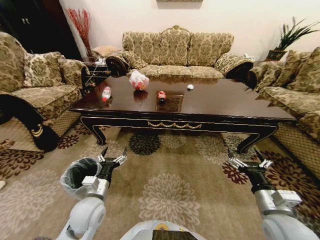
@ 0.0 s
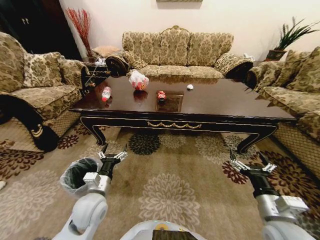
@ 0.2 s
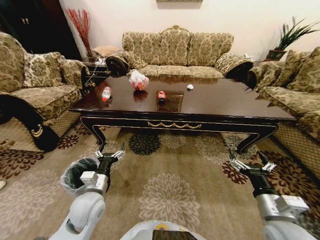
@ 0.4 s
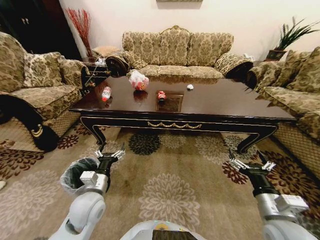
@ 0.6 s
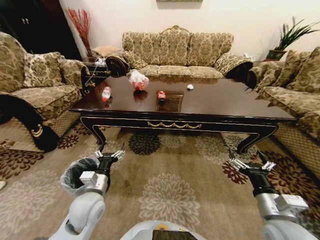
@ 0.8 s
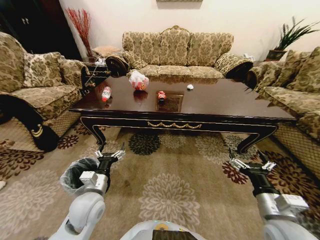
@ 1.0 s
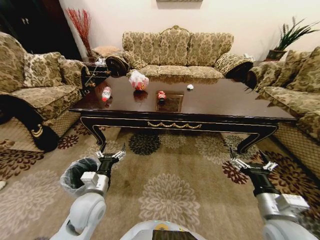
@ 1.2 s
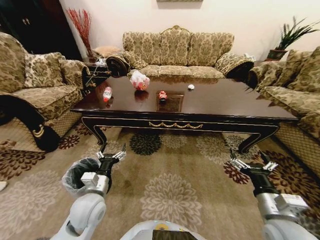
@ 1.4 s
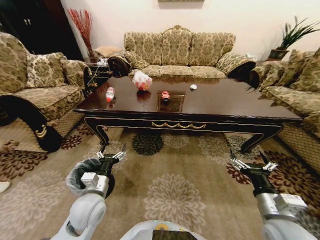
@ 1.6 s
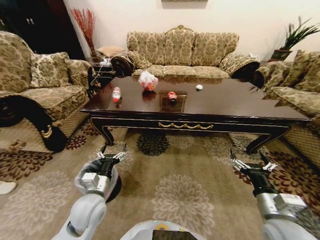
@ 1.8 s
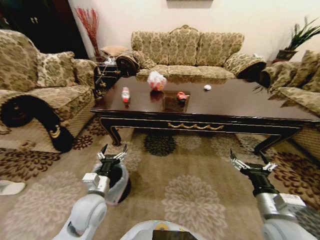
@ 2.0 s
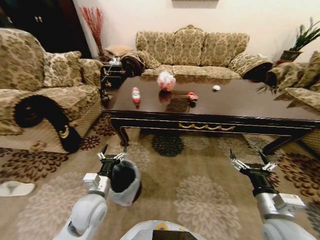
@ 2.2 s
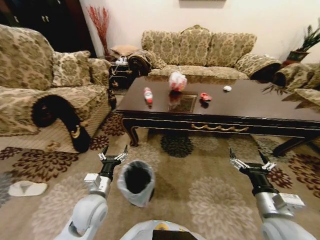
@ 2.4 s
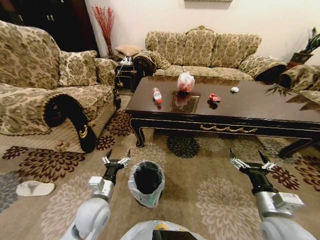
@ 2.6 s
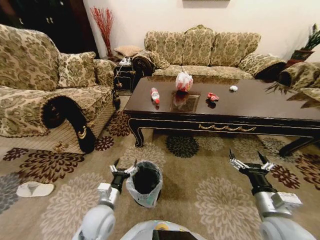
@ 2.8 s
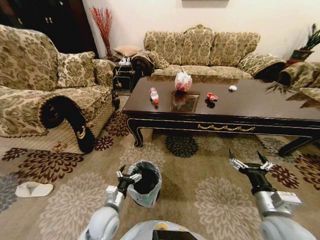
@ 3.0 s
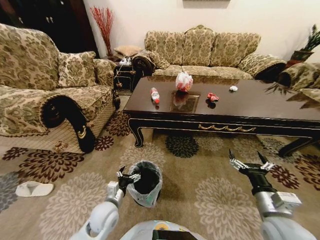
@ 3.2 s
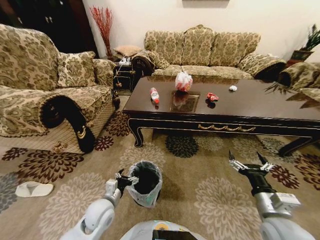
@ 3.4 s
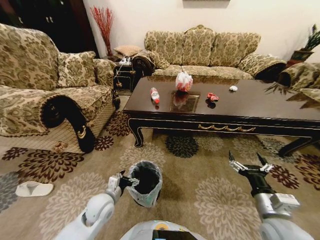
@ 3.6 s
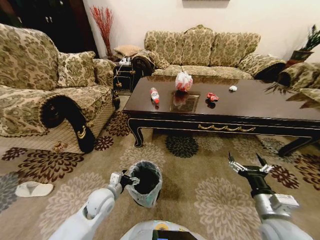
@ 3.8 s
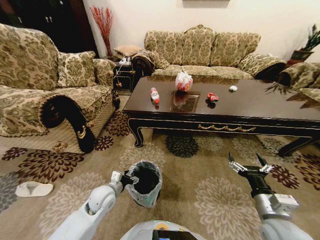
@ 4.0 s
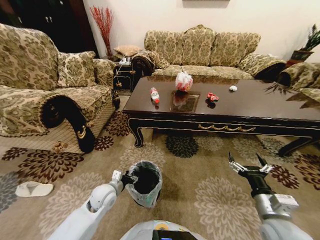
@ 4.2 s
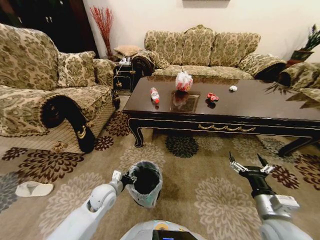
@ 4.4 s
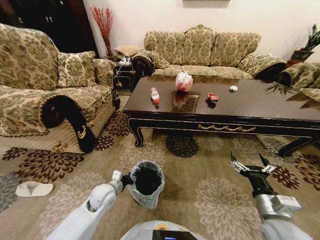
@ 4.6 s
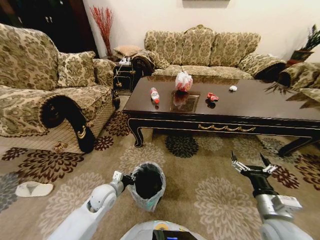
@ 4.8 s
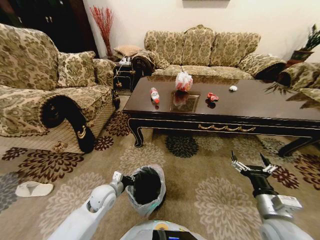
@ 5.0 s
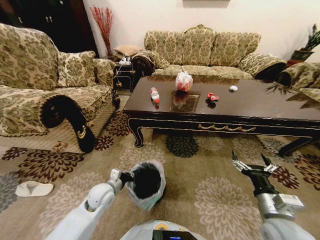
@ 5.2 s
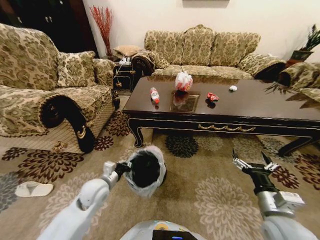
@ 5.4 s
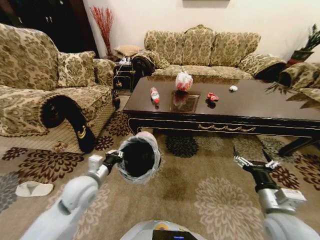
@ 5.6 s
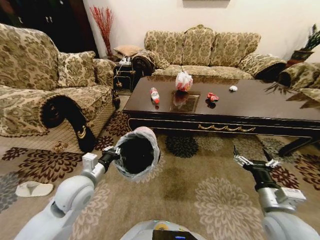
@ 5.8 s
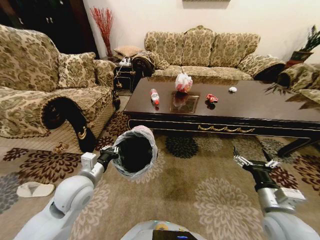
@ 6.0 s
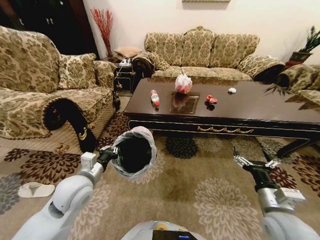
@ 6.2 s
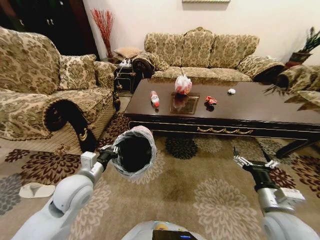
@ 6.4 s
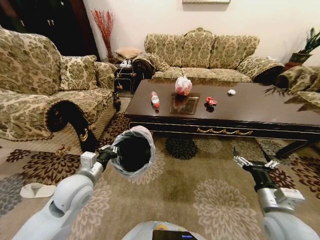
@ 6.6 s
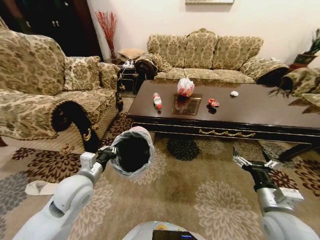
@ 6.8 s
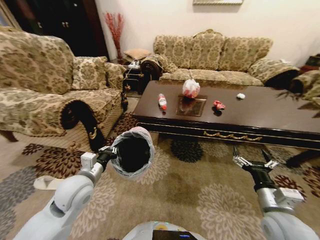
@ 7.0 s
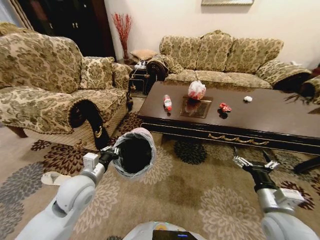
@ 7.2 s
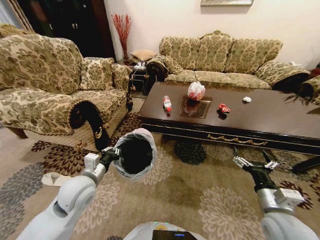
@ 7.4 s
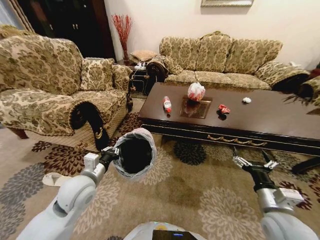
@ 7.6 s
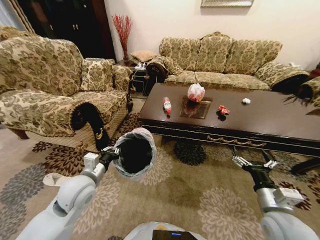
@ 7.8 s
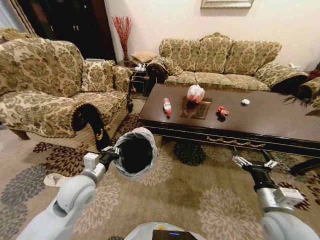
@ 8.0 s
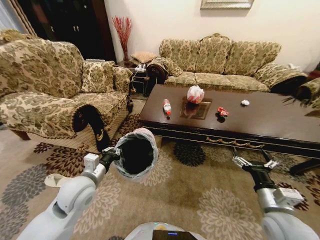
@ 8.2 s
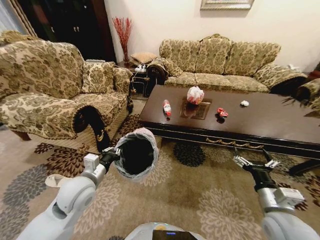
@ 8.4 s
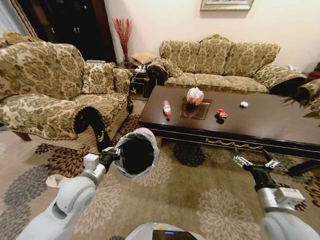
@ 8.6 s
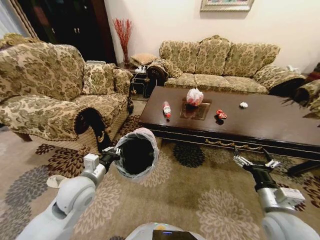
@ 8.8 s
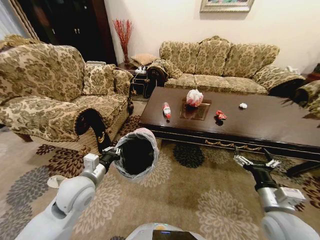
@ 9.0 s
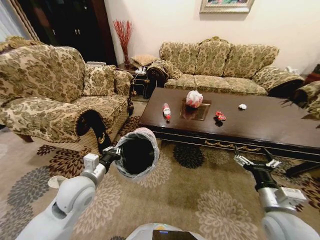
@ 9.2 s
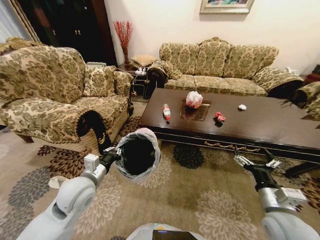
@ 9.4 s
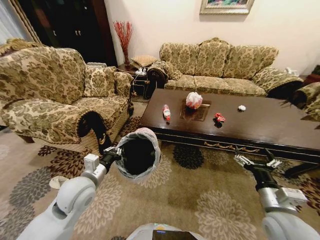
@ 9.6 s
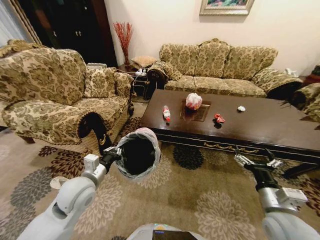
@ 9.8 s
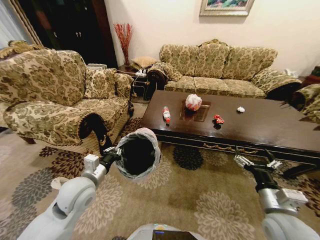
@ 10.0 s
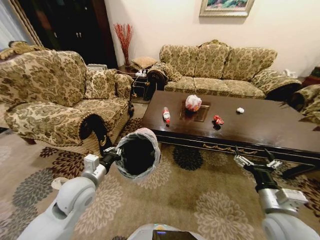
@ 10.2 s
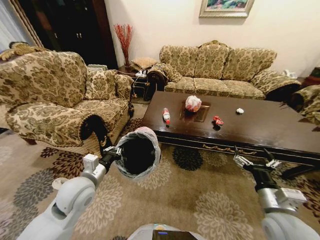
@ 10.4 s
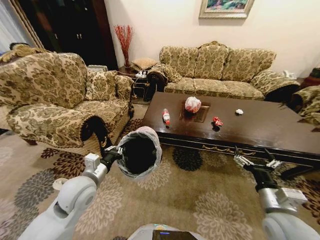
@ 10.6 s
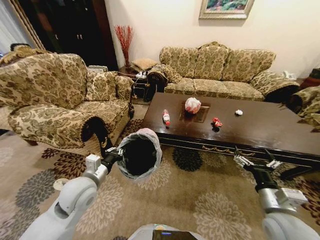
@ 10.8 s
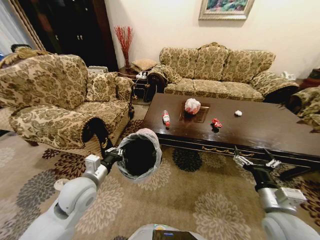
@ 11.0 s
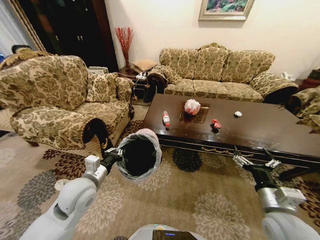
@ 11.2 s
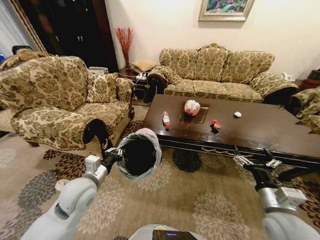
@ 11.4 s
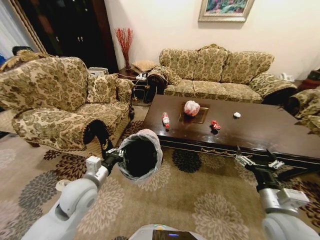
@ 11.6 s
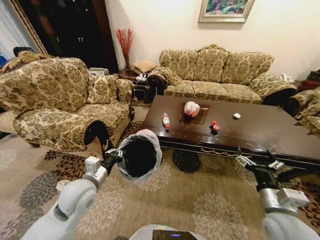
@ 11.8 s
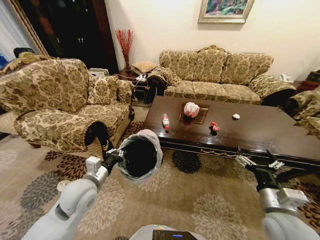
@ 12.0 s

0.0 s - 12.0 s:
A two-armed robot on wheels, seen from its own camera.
Task of the whole recording: Move to the front of the table and place the trash on the table into the trash bin.
1.6 s - 3.0 s: The left gripper heads downward, covering approximately 10 cm.
3.0 s - 4.4 s: The left gripper moves forward, roughly 10 cm, and closes.
4.4 s - 6.0 s: The left gripper heads upward, covering roughly 15 cm, and closes.

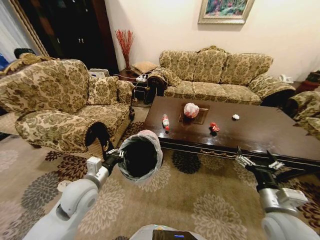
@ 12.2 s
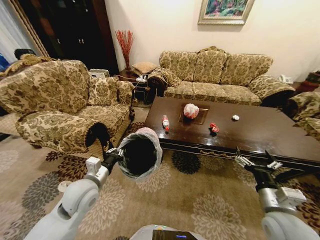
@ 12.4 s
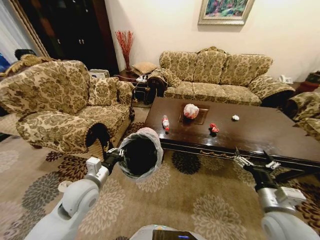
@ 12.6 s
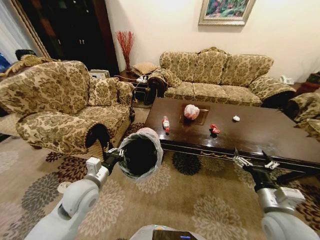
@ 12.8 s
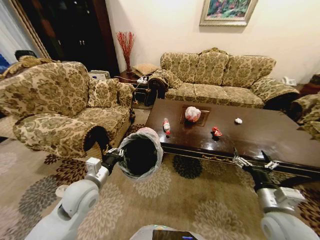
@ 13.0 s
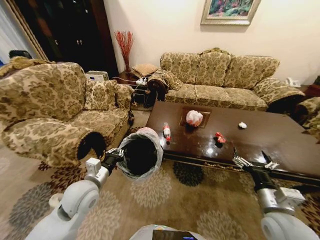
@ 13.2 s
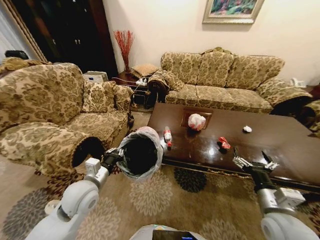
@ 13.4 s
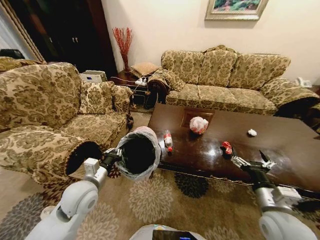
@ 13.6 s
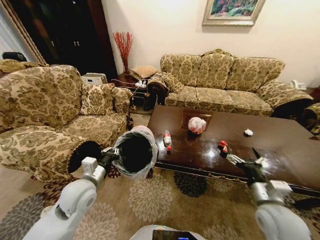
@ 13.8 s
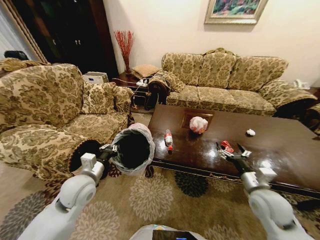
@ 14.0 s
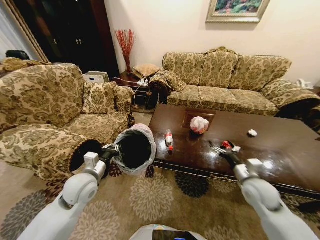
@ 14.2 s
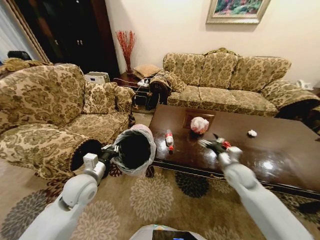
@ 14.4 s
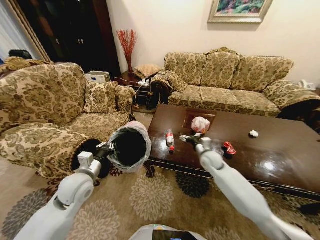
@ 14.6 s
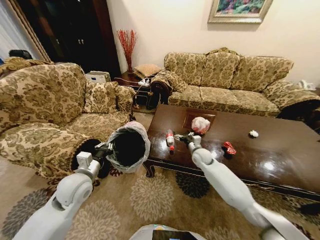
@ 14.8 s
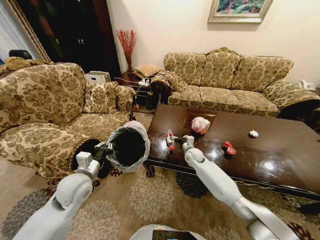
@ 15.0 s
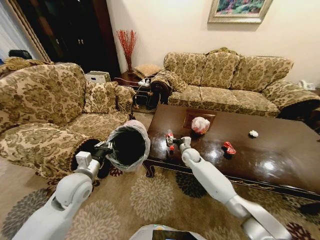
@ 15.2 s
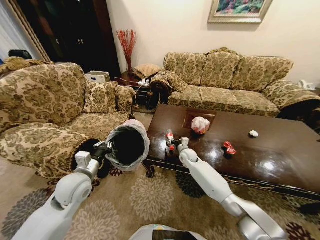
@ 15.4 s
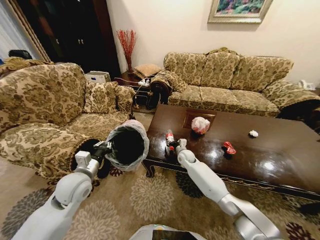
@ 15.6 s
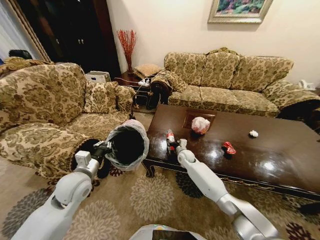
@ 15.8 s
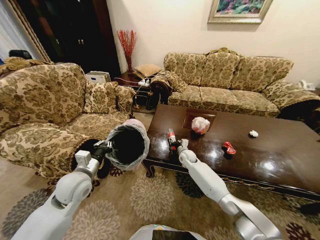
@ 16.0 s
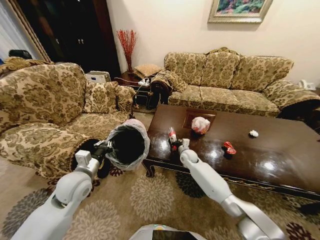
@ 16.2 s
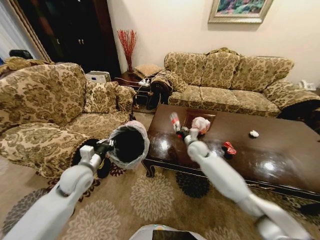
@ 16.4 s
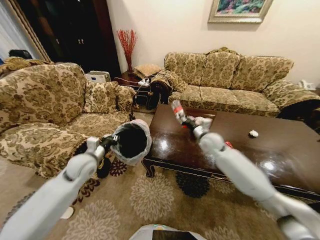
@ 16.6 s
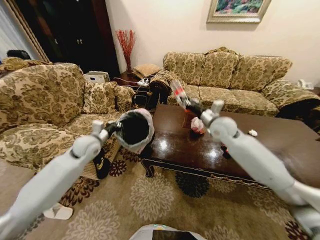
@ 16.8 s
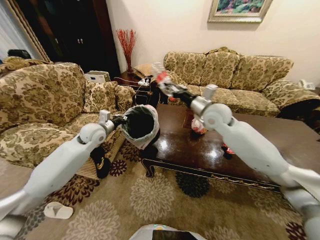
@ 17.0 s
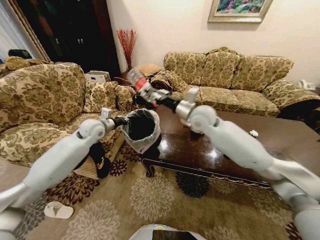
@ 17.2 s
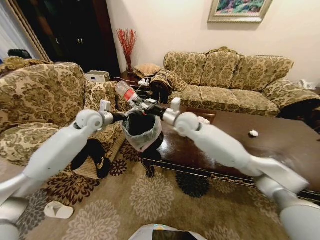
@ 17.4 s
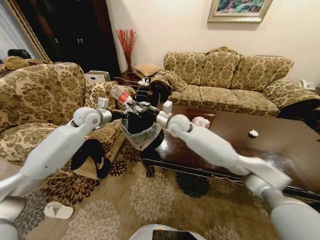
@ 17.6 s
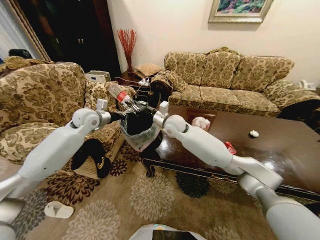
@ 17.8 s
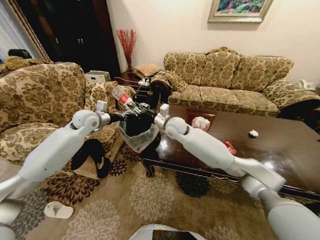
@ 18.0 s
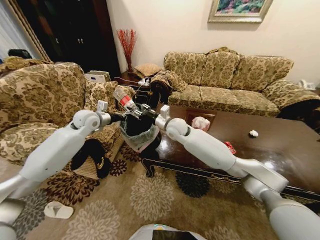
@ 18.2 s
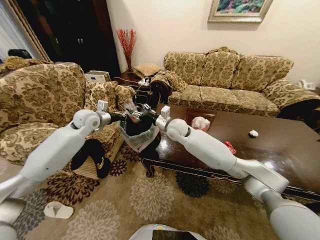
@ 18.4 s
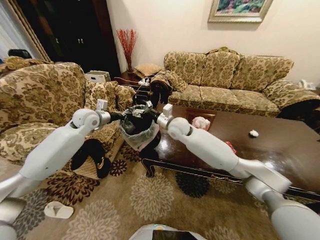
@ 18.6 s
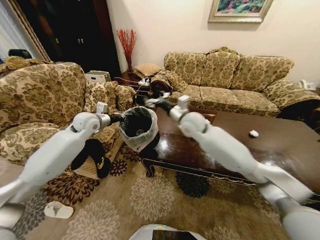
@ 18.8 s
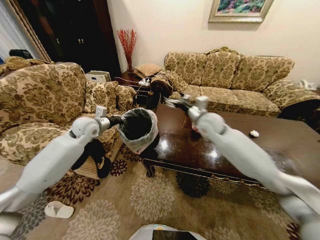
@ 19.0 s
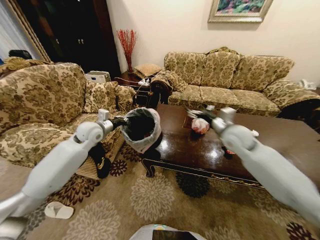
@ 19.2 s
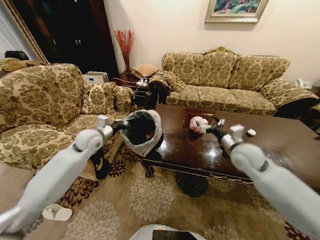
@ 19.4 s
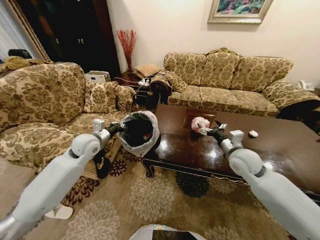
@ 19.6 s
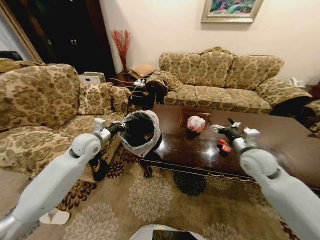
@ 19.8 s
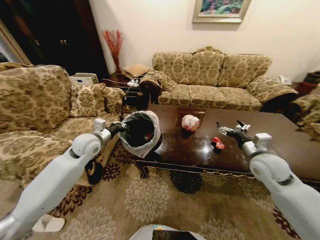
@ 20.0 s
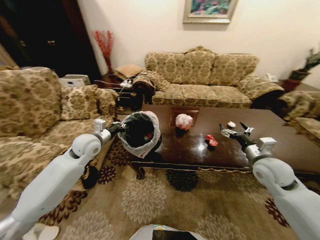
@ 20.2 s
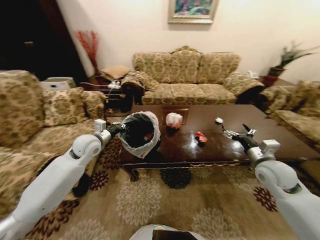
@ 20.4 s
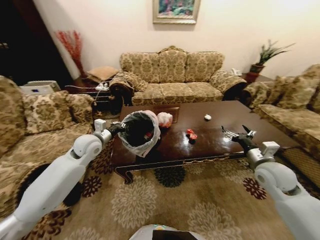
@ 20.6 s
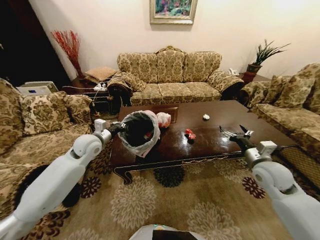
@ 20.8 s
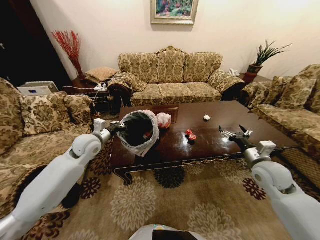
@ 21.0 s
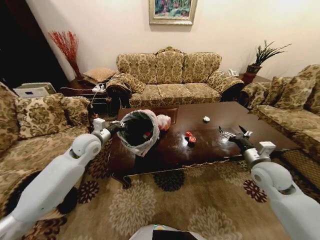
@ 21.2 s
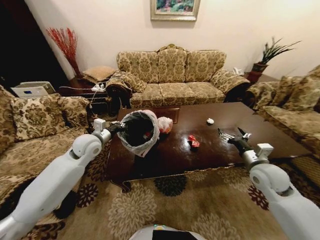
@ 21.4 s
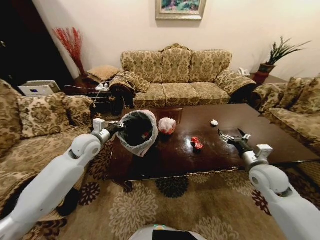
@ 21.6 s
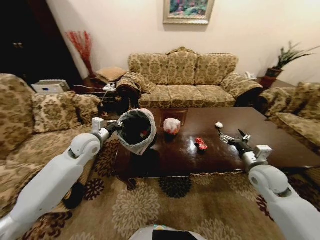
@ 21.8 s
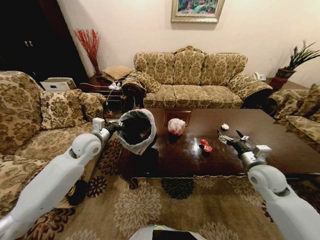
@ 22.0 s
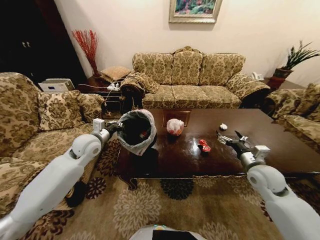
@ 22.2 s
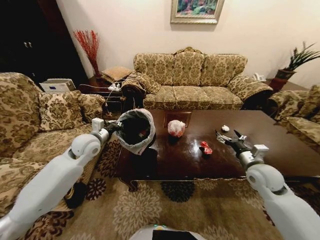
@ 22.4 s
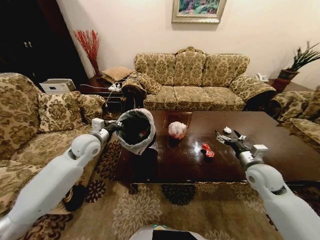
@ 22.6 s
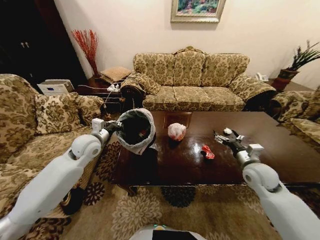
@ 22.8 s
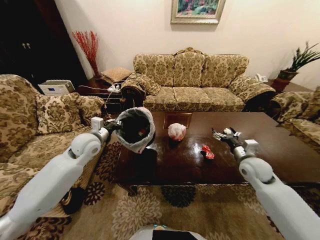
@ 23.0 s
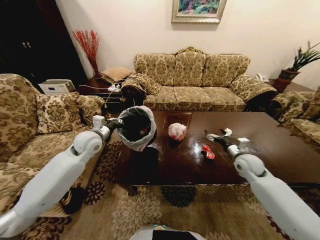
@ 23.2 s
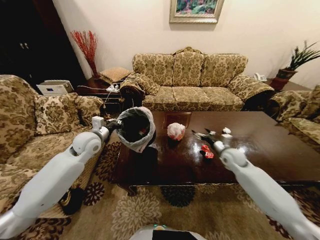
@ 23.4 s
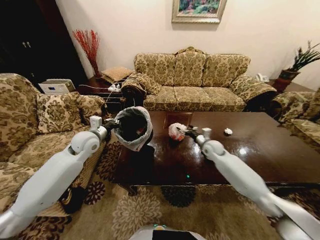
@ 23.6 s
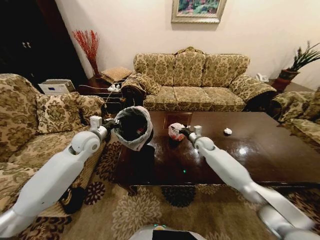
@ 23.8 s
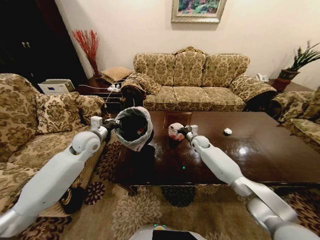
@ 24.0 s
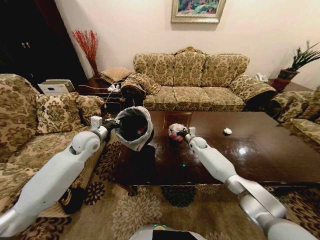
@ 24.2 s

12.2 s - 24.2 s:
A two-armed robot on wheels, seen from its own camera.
Task of the whole recording: Move to the front of the table and place the trash on the table into the trash bin.
13.8 s - 15.2 s: The right gripper travels forward, to the left and downward by approximately 35 cm.
15.2 s - 16.6 s: The left gripper shifts about 10 cm forward, while the right gripper shifts about 20 cm upward and to the right, and closes.
16.6 s - 18.2 s: The left gripper moves forward and upward, about 20 cm; the right gripper shifts roughly 20 cm to the left.
18.2 s - 19.8 s: The right gripper travels to the right and backward by approximately 30 cm, and opens; the left gripper shifts some 10 cm backward and downward.
19.8 s - 21.2 s: The right gripper shifts by about 5 cm.
22.6 s - 24.2 s: The right gripper goes roughly 30 cm forward, to the left and downward.
